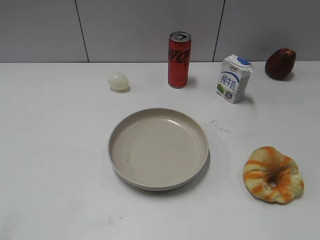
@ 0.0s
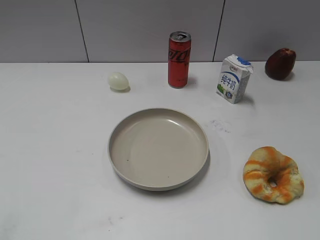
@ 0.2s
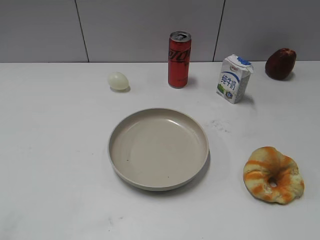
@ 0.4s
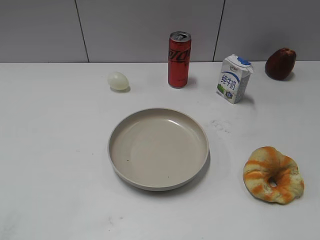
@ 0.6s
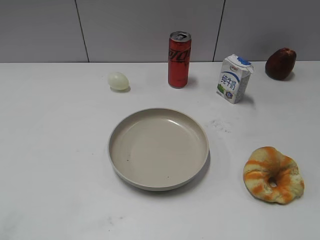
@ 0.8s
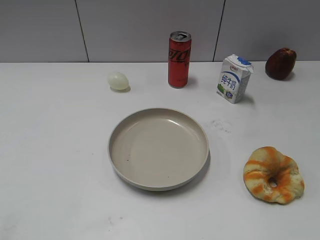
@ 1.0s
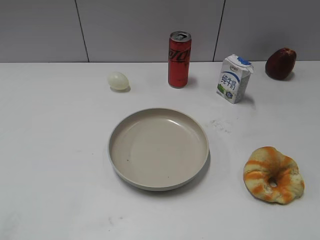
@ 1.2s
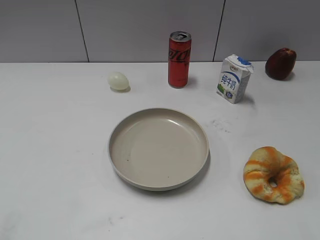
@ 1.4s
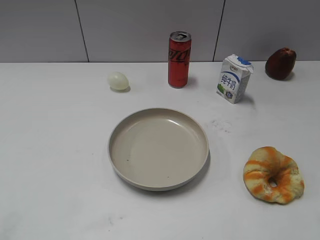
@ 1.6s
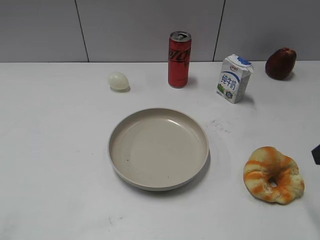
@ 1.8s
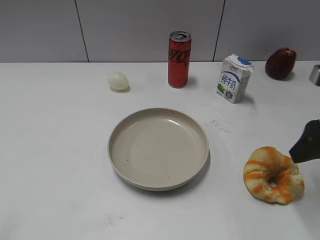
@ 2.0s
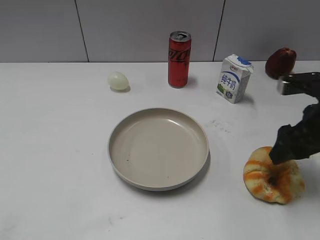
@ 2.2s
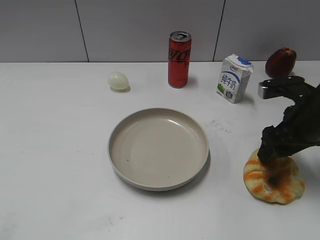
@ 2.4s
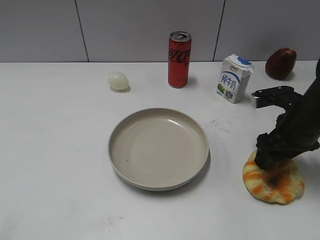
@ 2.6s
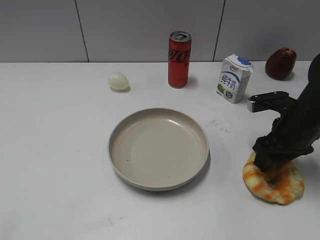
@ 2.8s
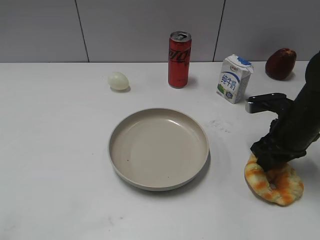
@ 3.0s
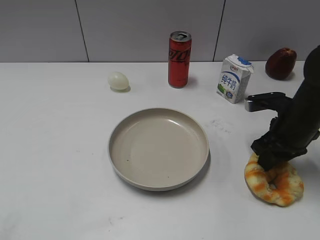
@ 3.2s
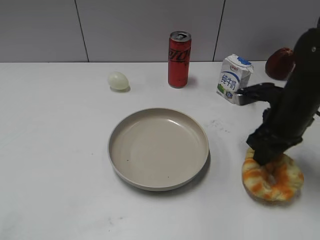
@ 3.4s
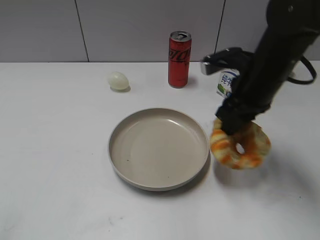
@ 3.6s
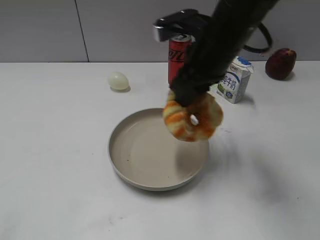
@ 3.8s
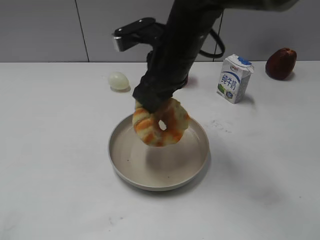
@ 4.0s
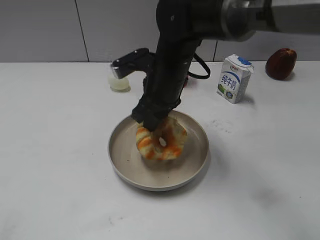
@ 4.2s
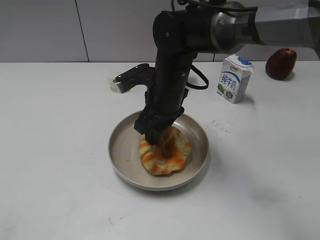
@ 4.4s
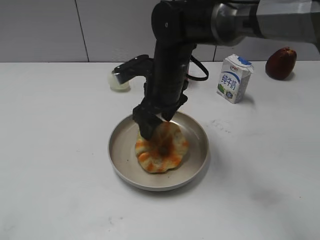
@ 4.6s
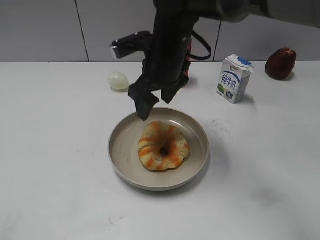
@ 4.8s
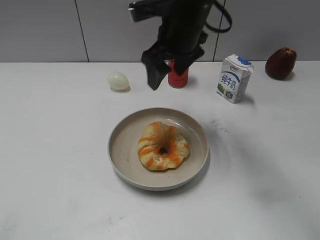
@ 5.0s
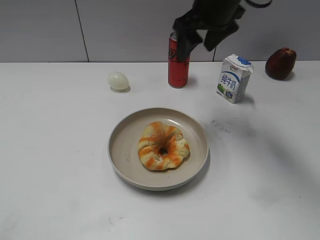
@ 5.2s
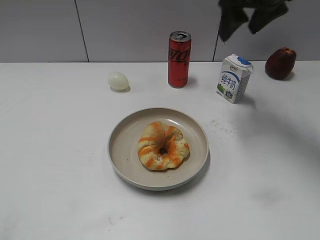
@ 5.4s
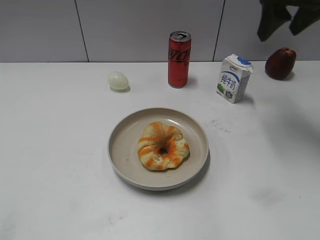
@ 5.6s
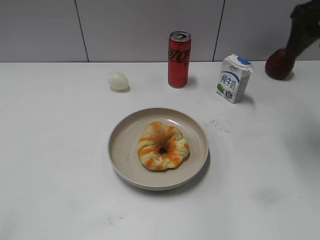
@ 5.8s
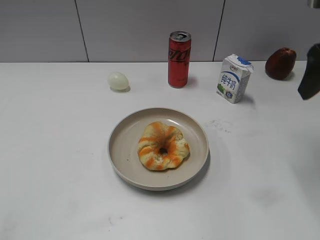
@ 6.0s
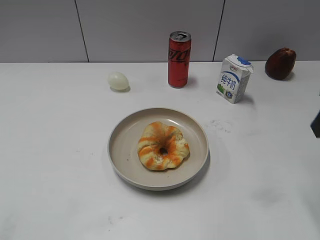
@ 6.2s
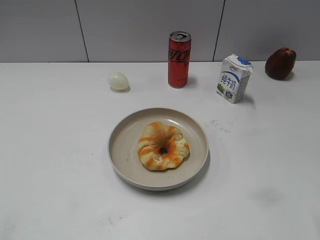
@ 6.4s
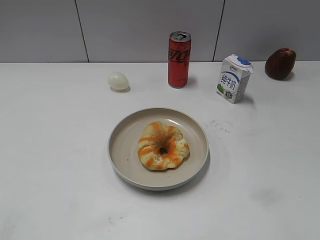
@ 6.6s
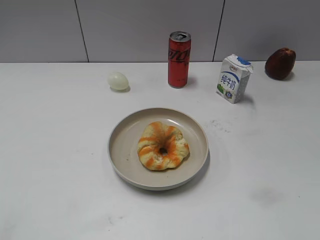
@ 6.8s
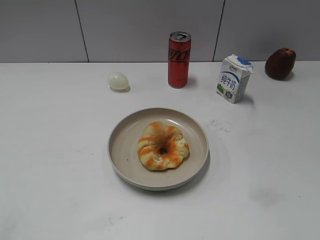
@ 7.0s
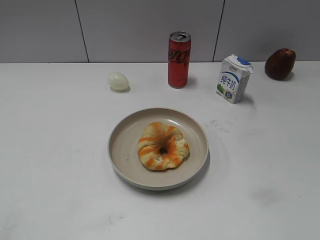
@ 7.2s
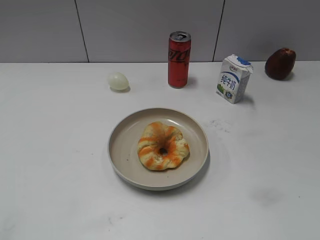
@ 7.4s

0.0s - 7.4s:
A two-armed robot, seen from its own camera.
Step, 0.6s - 3.0s: Grasp the round bread with right gripper.
Step, 3.4s - 4.8s: Place the round bread on the plate with right gripper.
1.4s - 3.0s: The right gripper travels forward and downward by roughly 25 cm, and closes up.
3.0s - 4.4s: The right gripper travels to the left by approximately 25 cm.
4.4s - 6.0s: The right gripper shifts roughly 30 cm to the right and upward, and opens.
6.0s - 7.4s: The right gripper goes roughly 25 cm backward.
